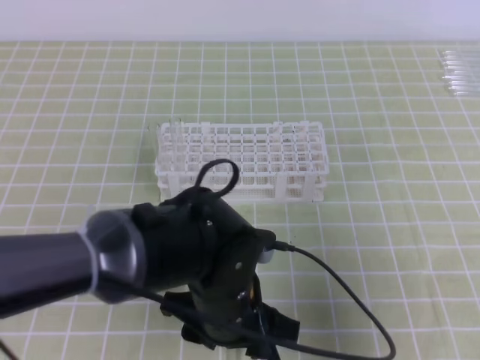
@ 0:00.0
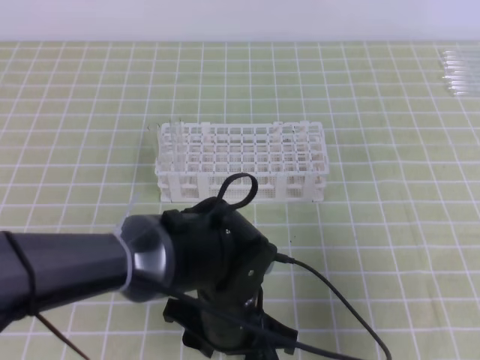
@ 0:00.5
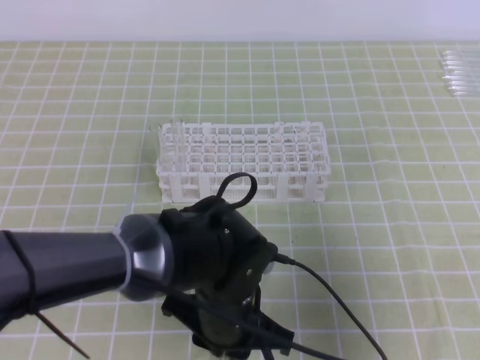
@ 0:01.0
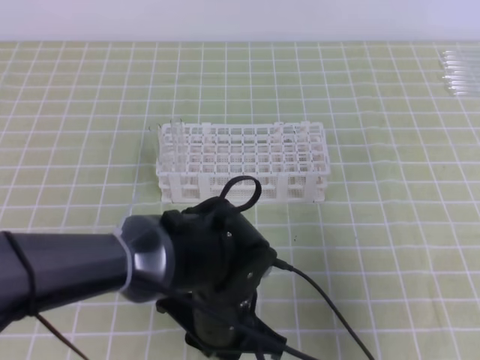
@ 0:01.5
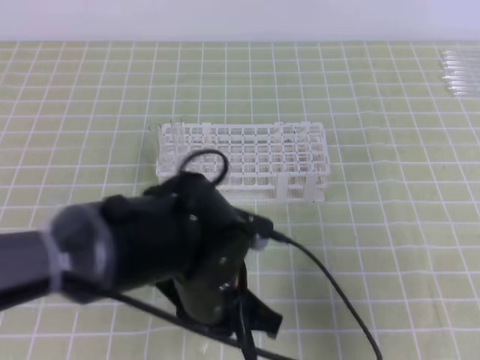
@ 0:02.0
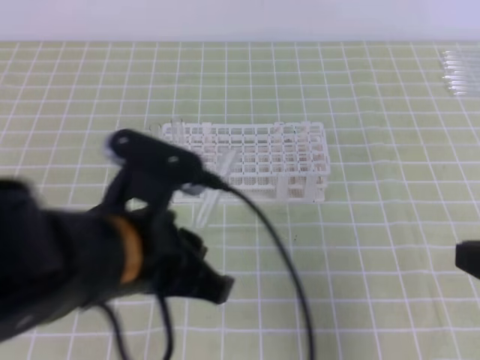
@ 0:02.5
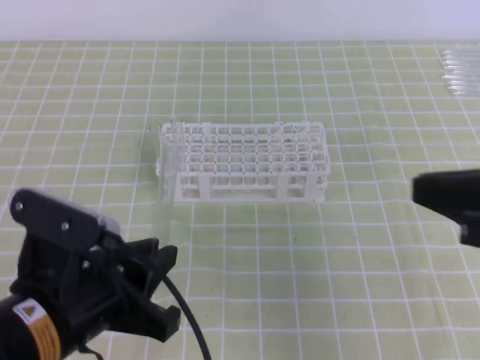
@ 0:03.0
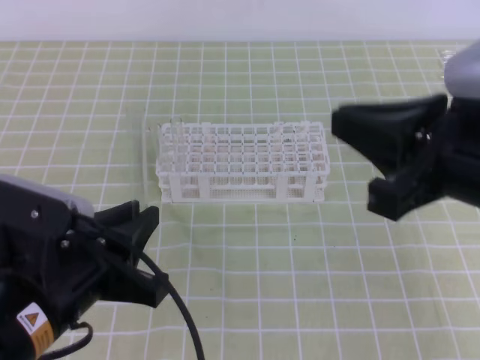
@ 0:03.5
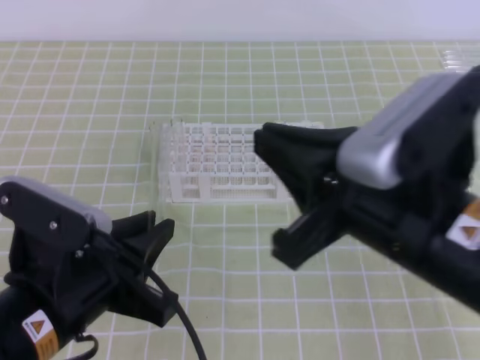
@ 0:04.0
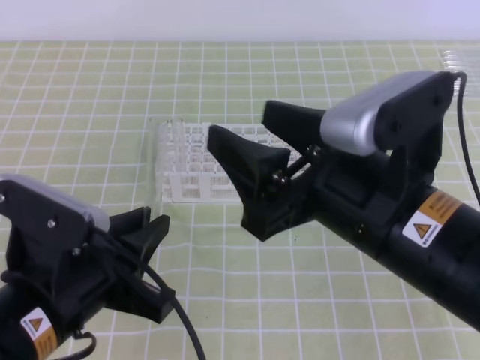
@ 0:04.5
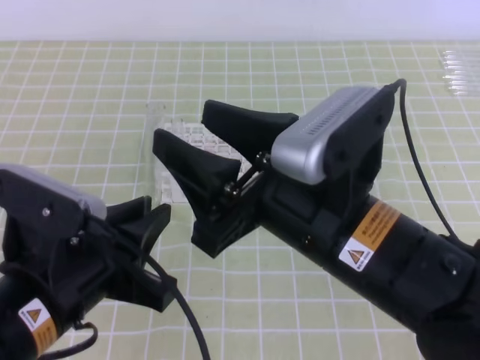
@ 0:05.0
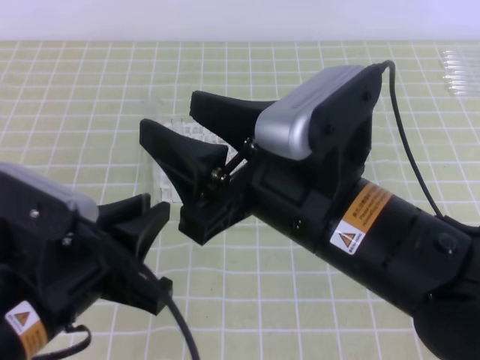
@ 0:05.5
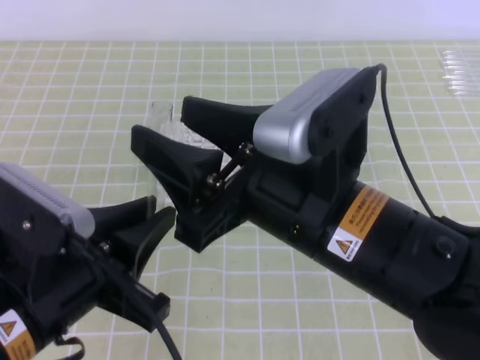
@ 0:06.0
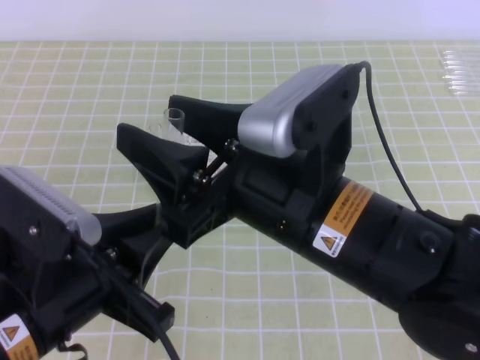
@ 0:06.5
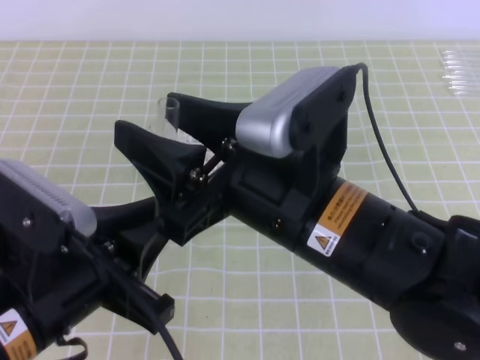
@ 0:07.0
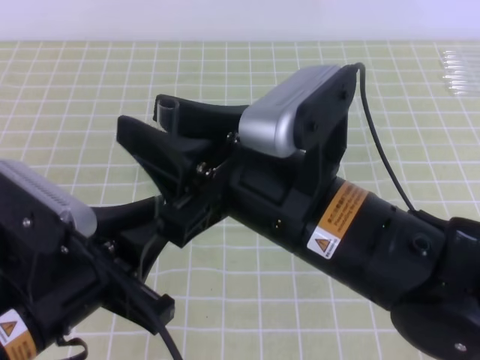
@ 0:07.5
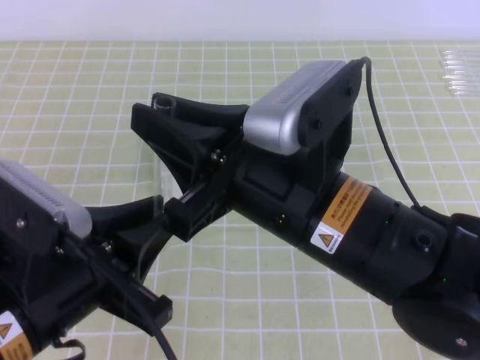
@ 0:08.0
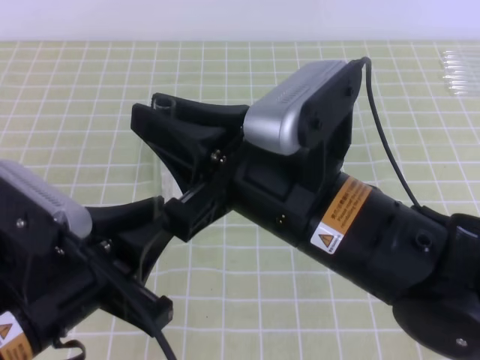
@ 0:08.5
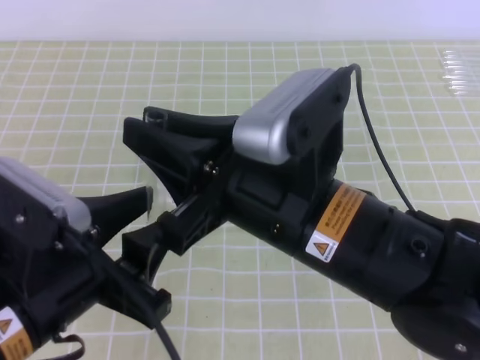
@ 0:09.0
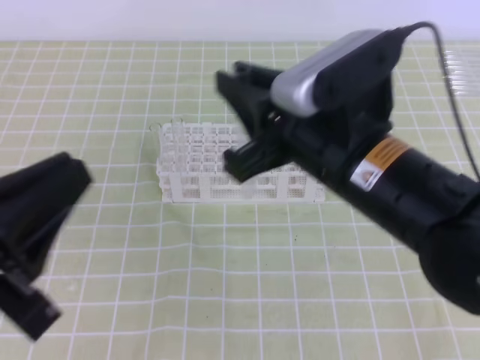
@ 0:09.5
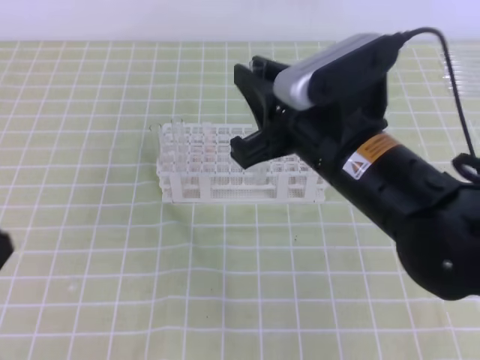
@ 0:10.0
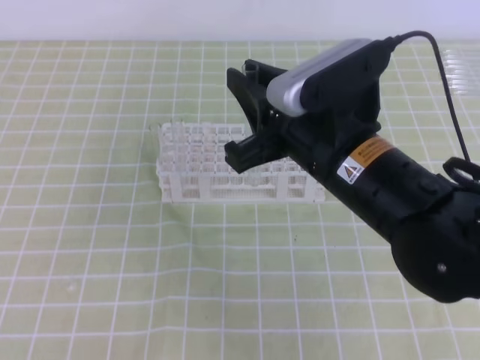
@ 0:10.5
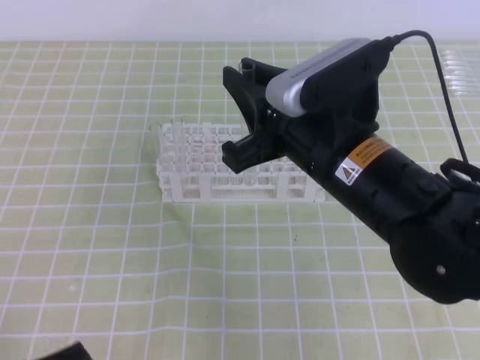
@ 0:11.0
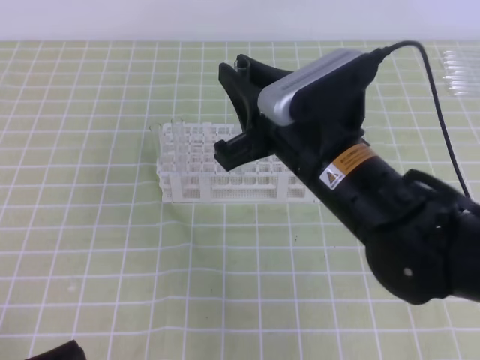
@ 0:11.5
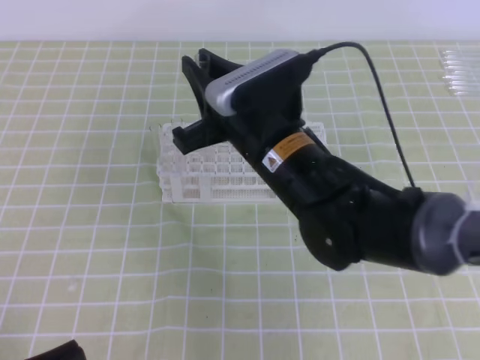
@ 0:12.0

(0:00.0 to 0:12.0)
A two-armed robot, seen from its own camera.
Step, 0:00.0 - 0:03.0: Pass the test tube from the left gripper to the right gripper.
Step, 0:03.5 - 0:07.0: Place the test tubes on the test tube rack with the right gripper.
0:00.0 - 0:02.0: The left gripper closes.
0:02.0 - 0:04.0: The right gripper is displaced to the left and upward by approximately 15 cm. Meanwhile the left gripper moves to the left, backward and upward, some 15 cm.
0:04.0 - 0:06.0: The right gripper heads to the left, covering roughly 5 cm, and opens its fingers.
0:06.0 - 0:08.0: The right gripper closes.
0:08.0 - 0:10.0: The right gripper travels forward by approximately 5 cm, while the left gripper shifts roughly 10 cm to the left and backward, and opens, then closes once more.
0:10.0 - 0:12.0: The right gripper travels to the left and forward by approximately 10 cm, while the left gripper travels downward by approximately 10 cm.

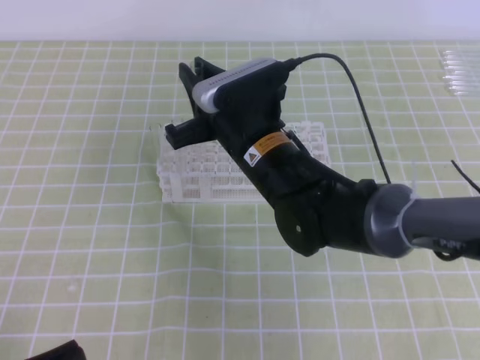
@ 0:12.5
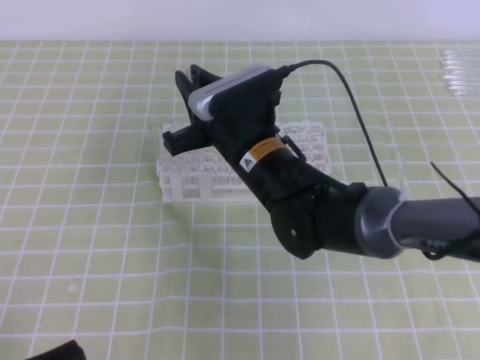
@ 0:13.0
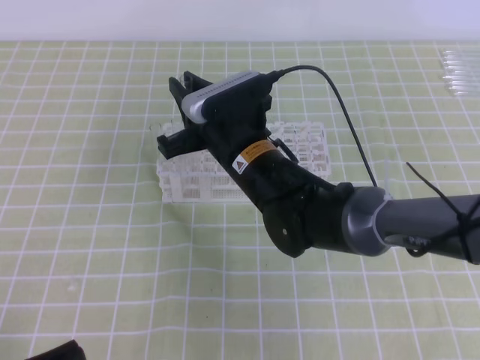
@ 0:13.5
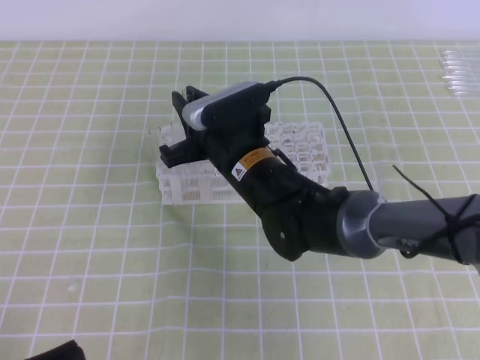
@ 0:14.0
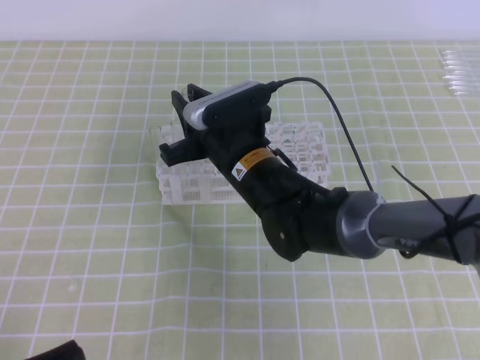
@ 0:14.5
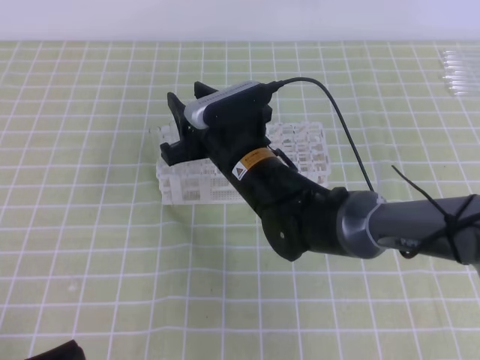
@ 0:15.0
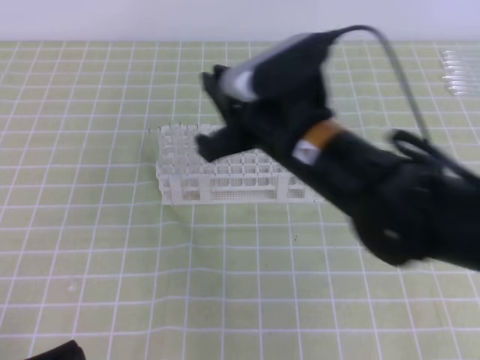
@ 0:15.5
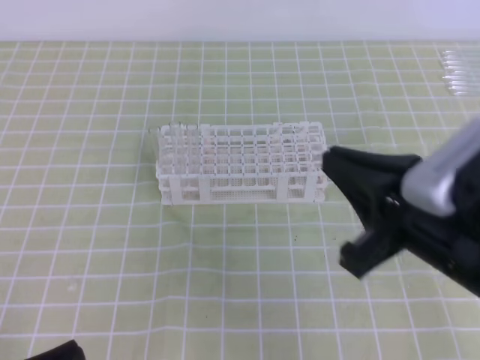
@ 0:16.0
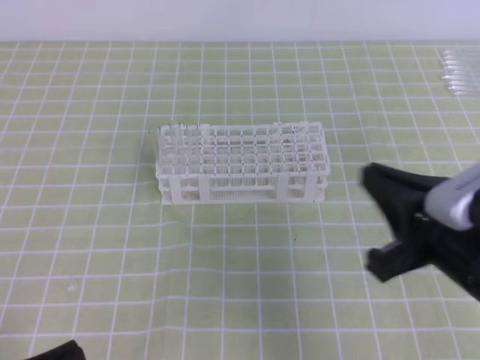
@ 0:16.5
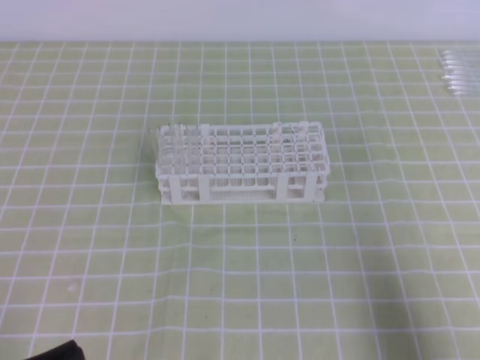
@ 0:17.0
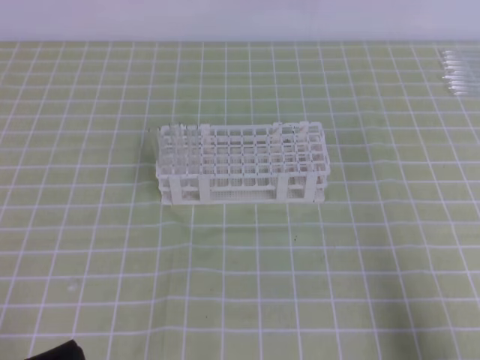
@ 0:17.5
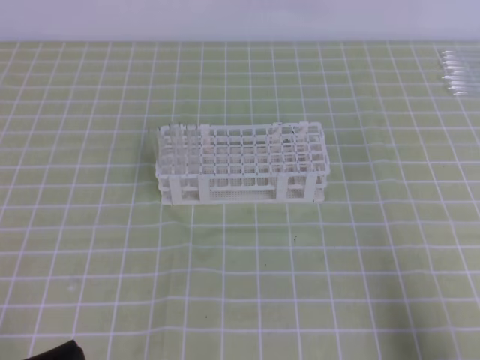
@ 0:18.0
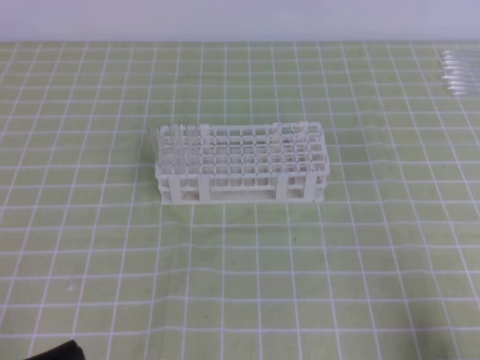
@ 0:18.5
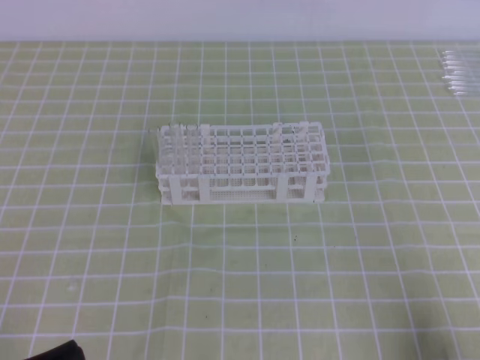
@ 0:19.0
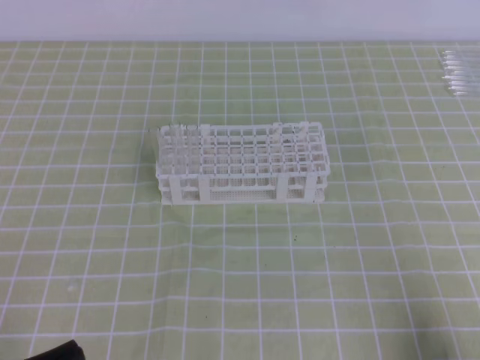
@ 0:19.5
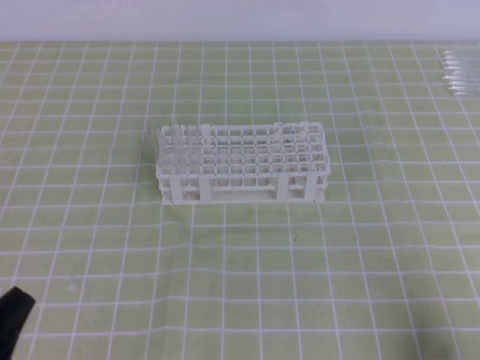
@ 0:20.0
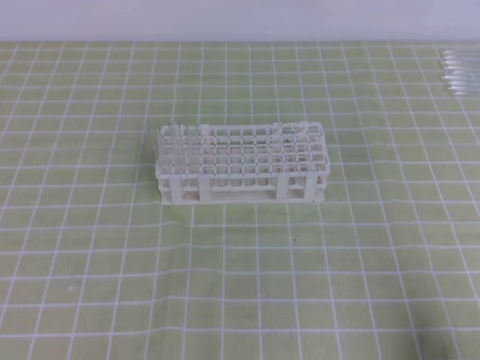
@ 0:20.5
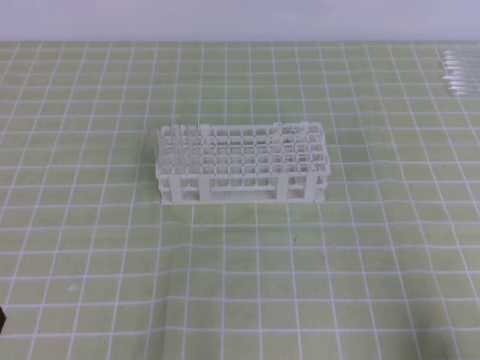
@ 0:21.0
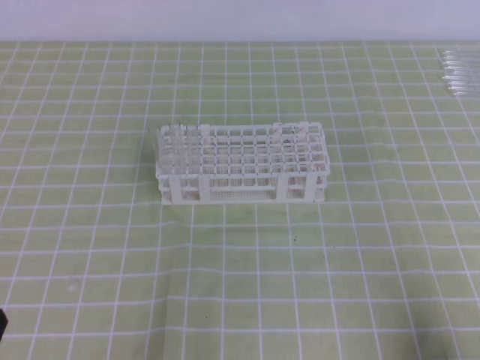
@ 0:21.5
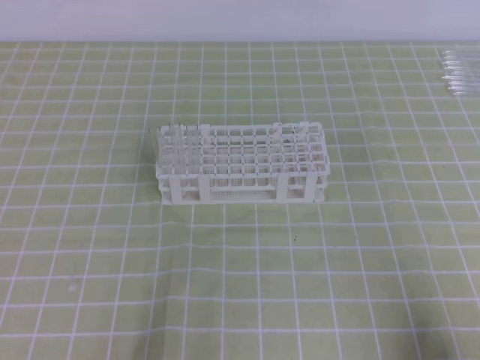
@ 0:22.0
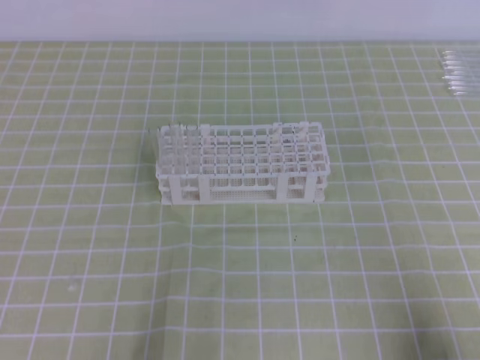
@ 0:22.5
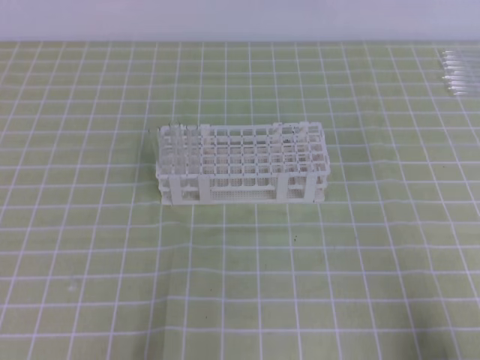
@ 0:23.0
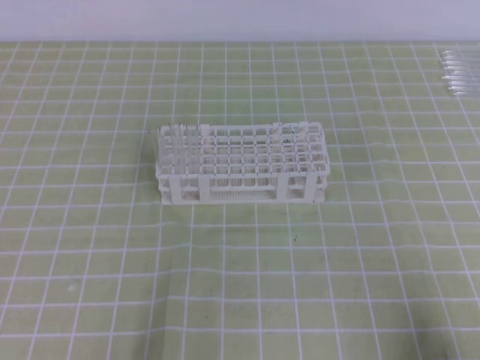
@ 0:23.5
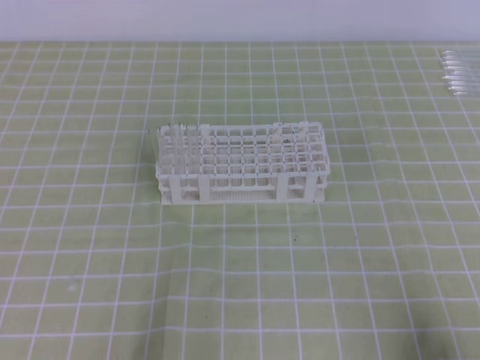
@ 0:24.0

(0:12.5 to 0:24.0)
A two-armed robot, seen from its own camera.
0:12.5 - 0:14.5: The grippers stay close to where they were, moving slightly.
0:14.5 - 0:16.5: The right gripper travels to the right and backward by about 25 cm, and closes.
0:16.5 - 0:18.5: The right gripper moves to the right, backward and downward, approximately 20 cm.
0:18.5 - 0:20.0: The grippers move only a little.
0:22.0 - 0:24.0: The two grippers keep their place.

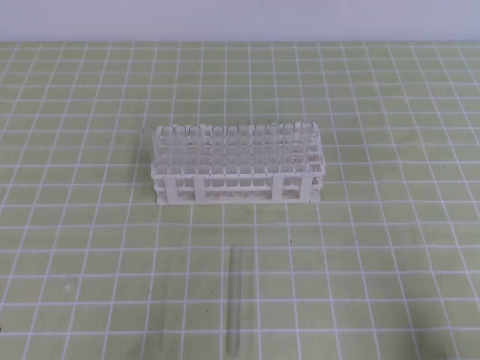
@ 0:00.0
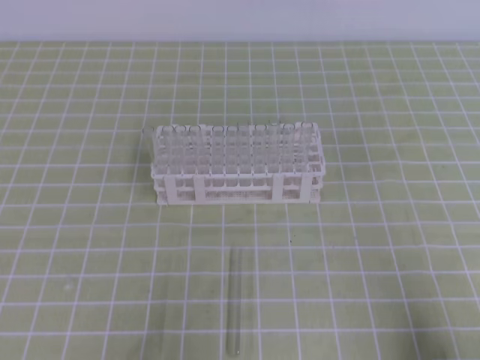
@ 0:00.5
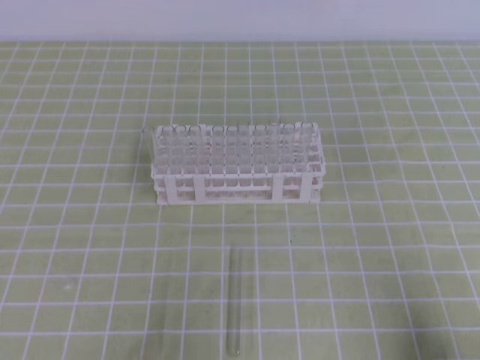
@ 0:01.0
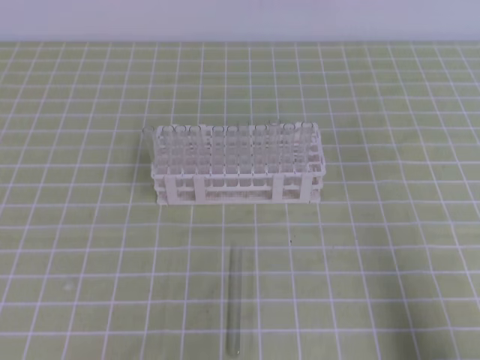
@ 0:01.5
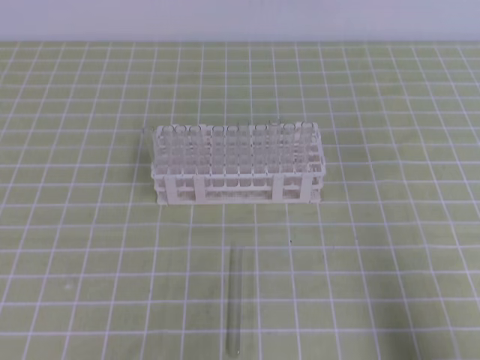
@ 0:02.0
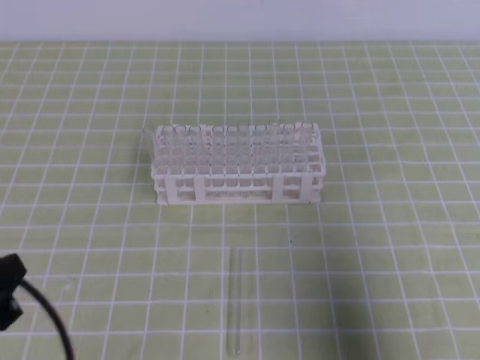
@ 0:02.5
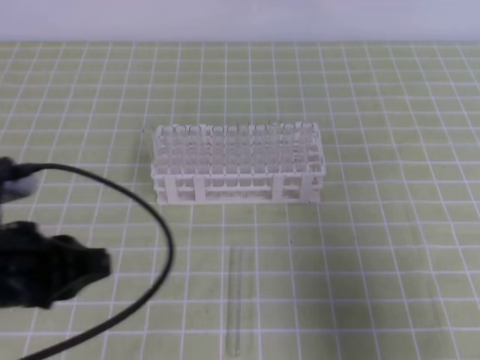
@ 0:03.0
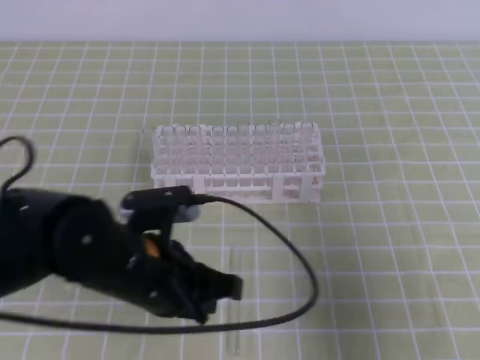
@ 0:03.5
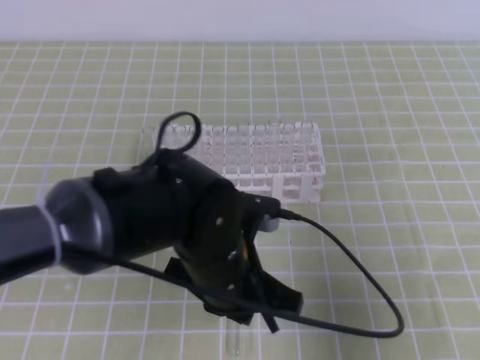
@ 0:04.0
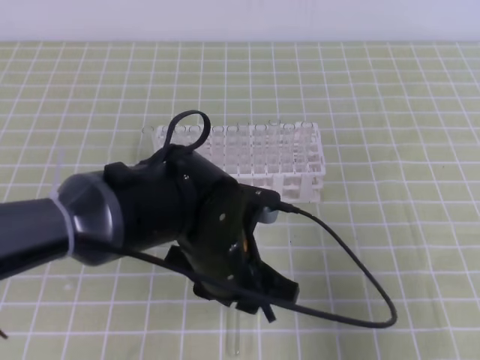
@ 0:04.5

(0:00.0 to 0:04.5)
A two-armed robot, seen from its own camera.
0:02.0 - 0:04.5: The left gripper is displaced to the right and forward by some 30 cm, and opens up. Meanwhile the right gripper shifts about 5 cm forward.
